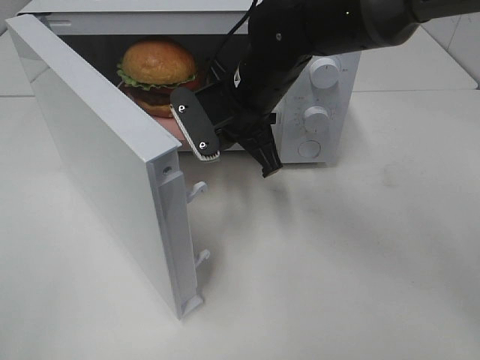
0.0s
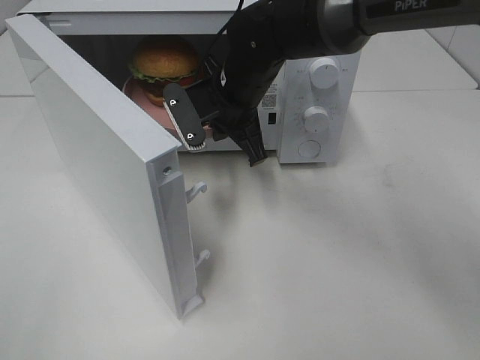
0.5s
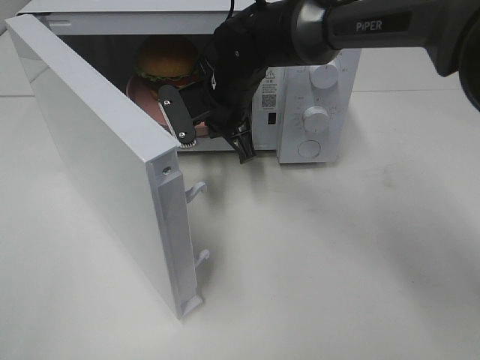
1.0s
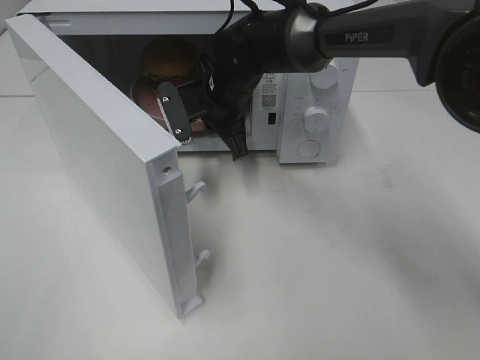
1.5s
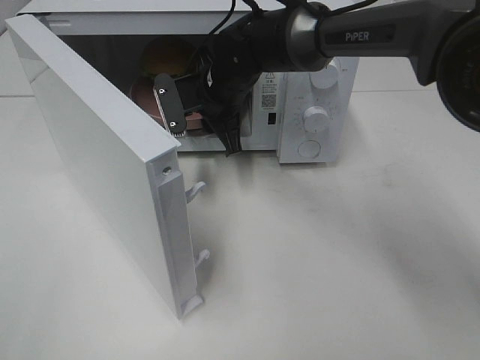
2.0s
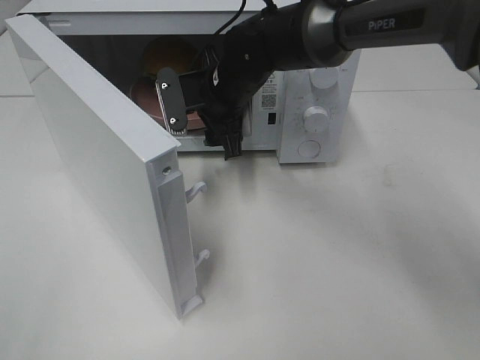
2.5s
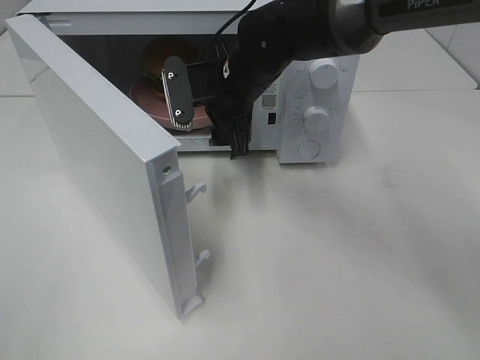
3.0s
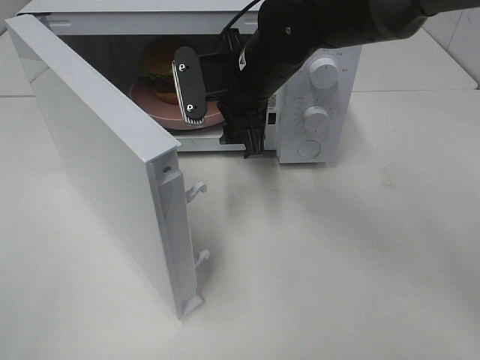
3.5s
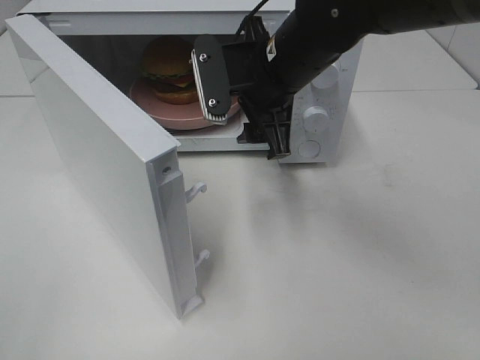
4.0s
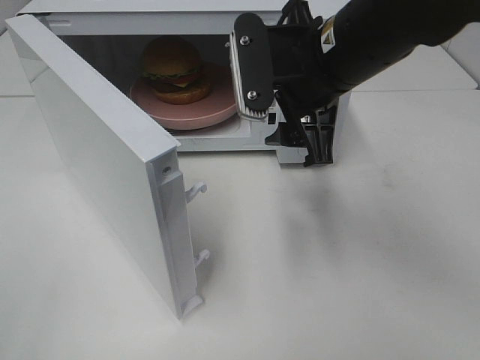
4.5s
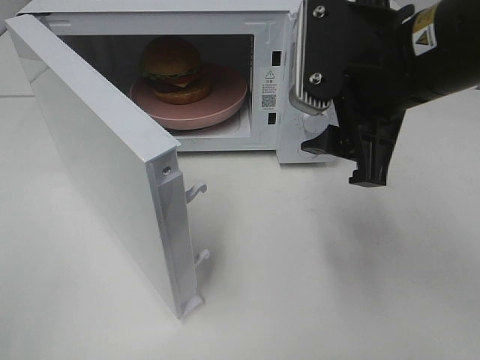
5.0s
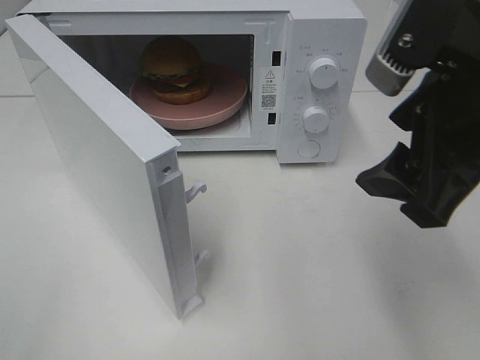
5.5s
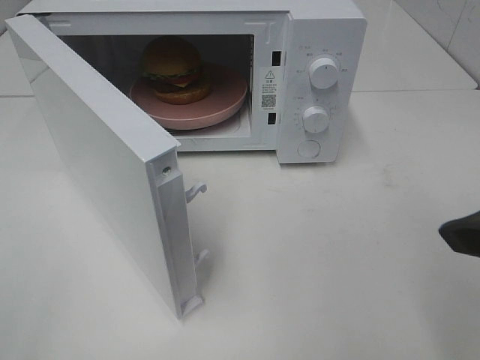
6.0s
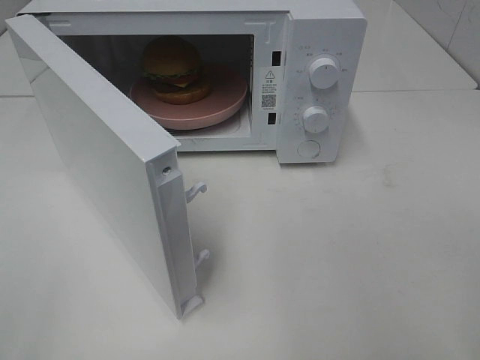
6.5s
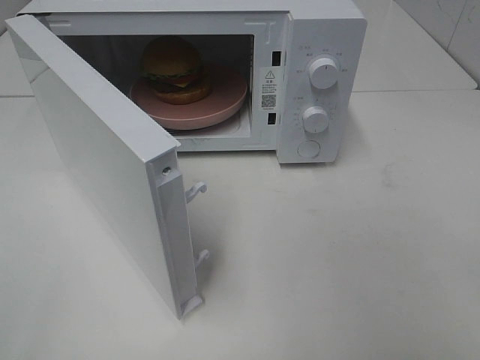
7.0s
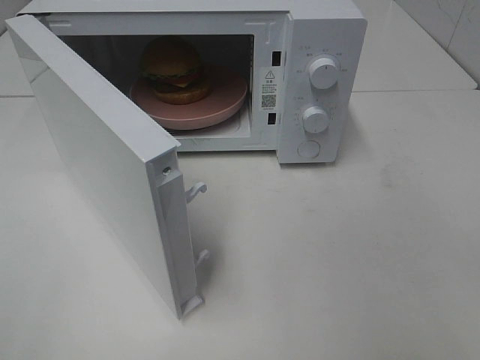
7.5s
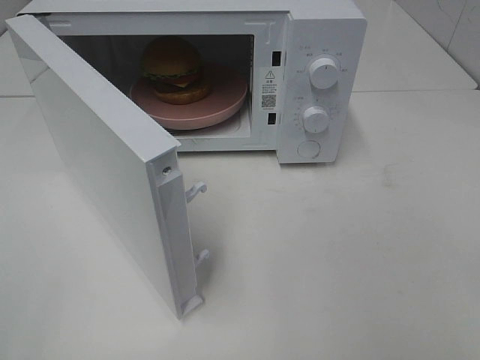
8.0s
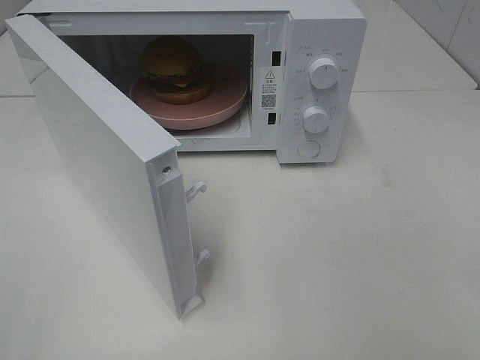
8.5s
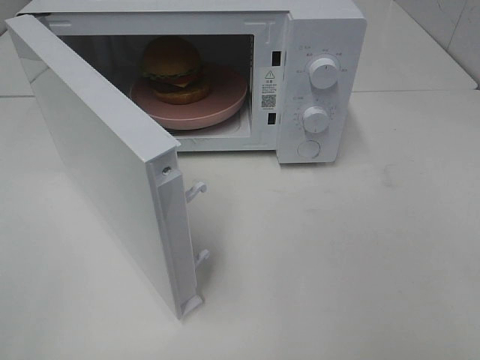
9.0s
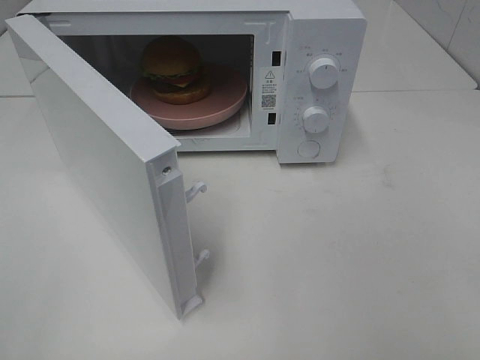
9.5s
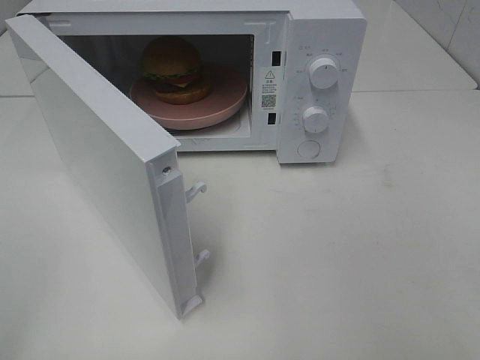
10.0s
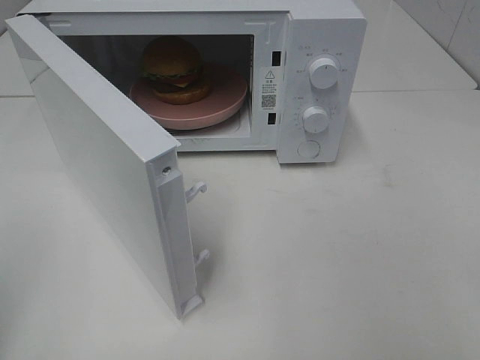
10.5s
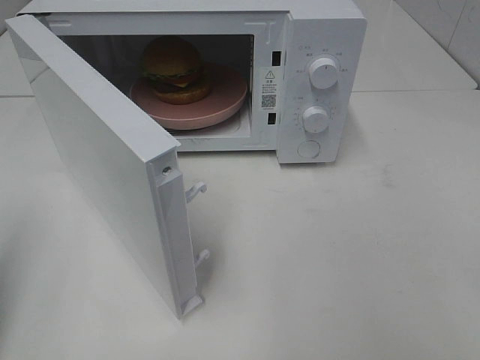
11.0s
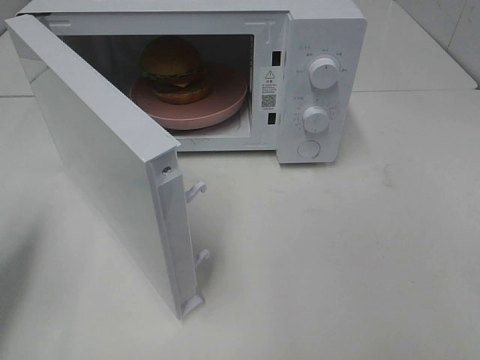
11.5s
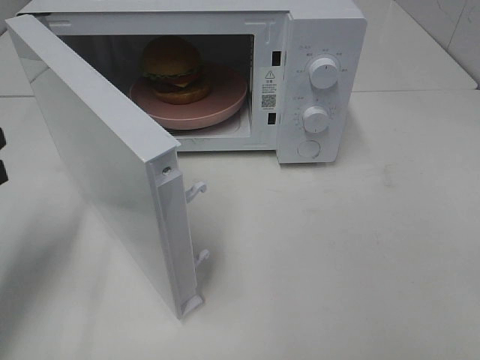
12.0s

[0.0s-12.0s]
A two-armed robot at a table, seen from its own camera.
Task of the whole recording: Heat the burger.
0.0s to 2.0s: The right gripper moves forward, about 5 cm, and opens.
2.0s to 4.0s: The right gripper goes some 15 cm backward, upward and to the right, and opens.
4.0s to 6.0s: The right gripper goes approximately 25 cm backward and to the right.
6.0s to 8.0s: The right gripper moves backward and to the right, some 15 cm.
10.0s to 12.0s: The left gripper shifts some 20 cm forward and downward, and closes its fingers.

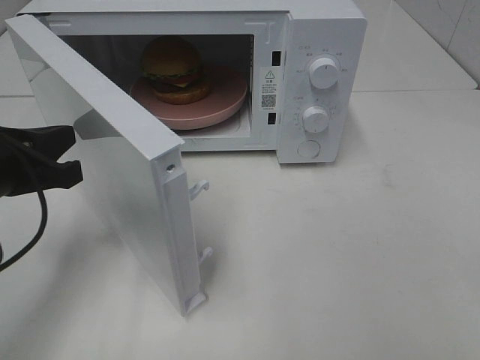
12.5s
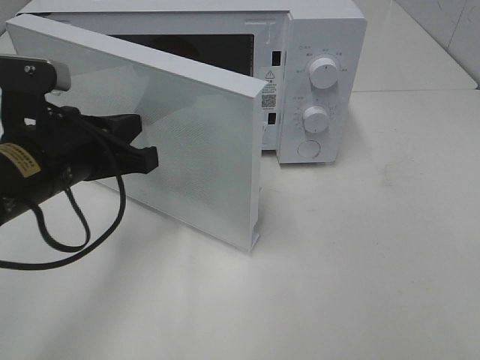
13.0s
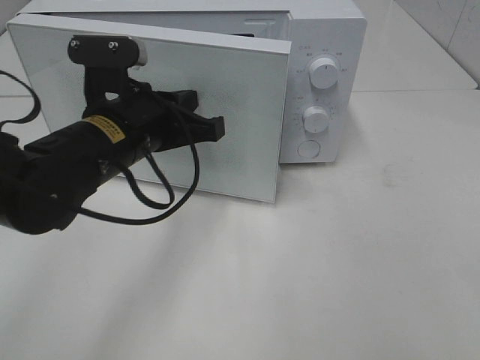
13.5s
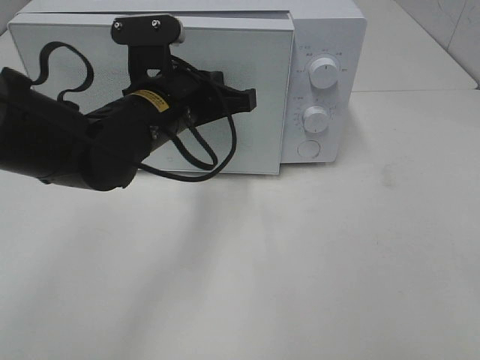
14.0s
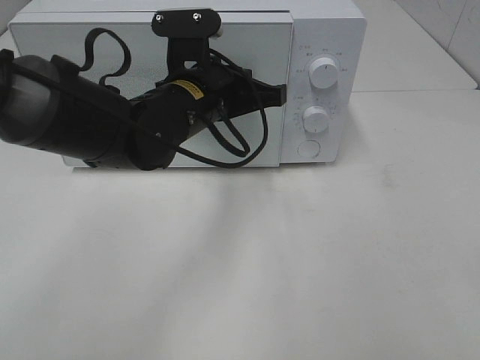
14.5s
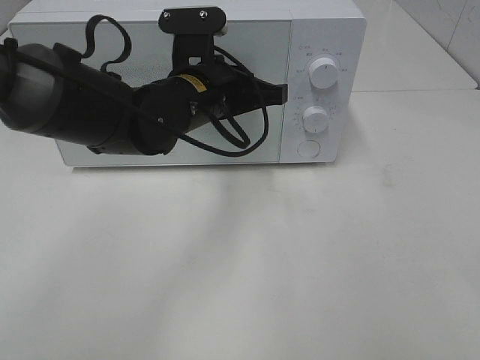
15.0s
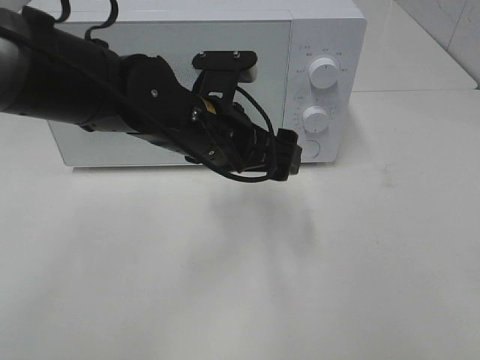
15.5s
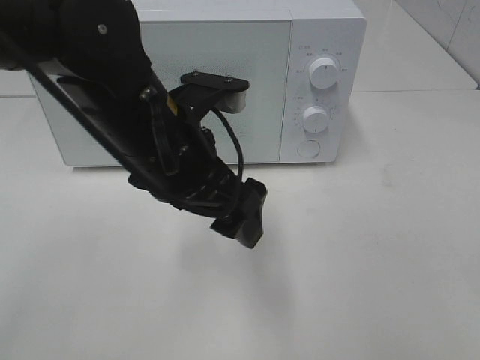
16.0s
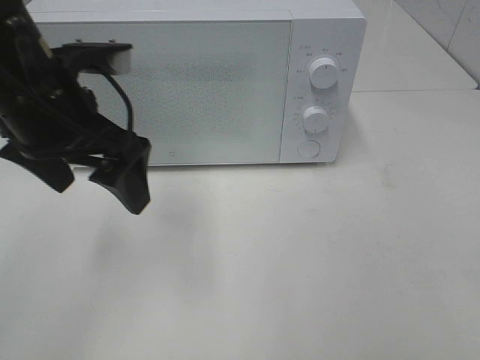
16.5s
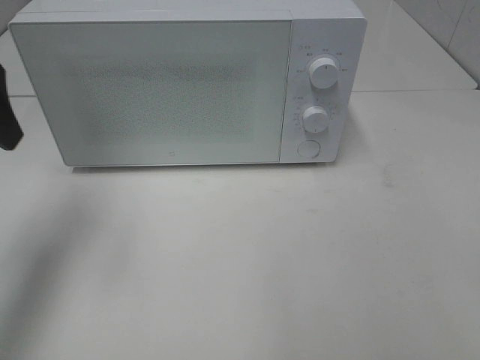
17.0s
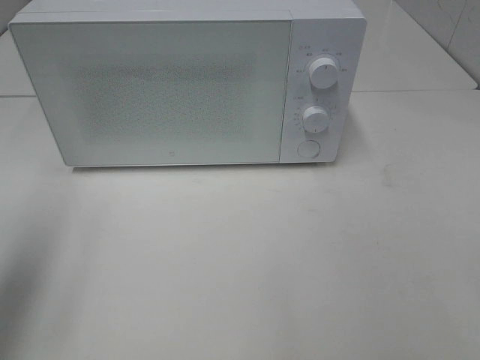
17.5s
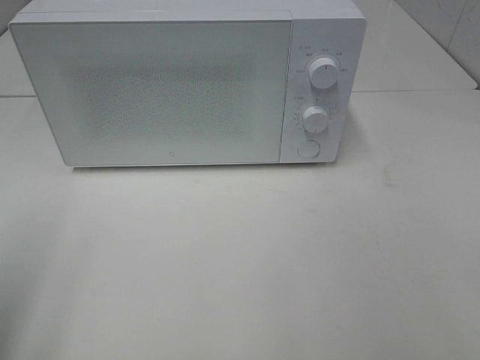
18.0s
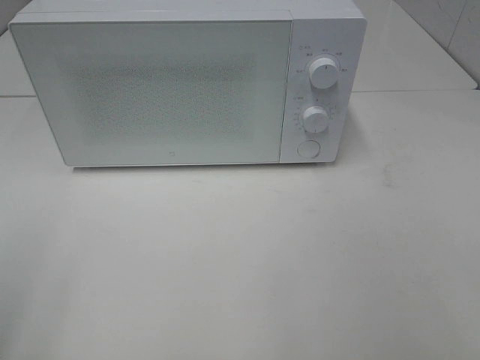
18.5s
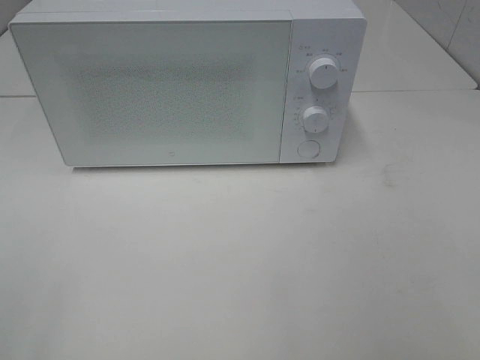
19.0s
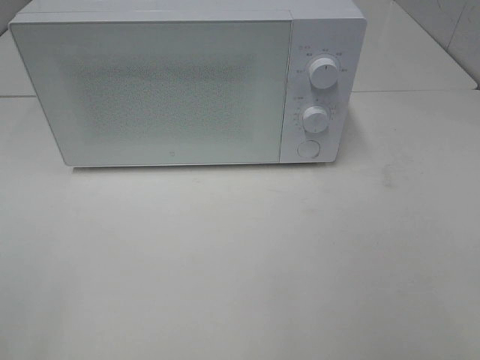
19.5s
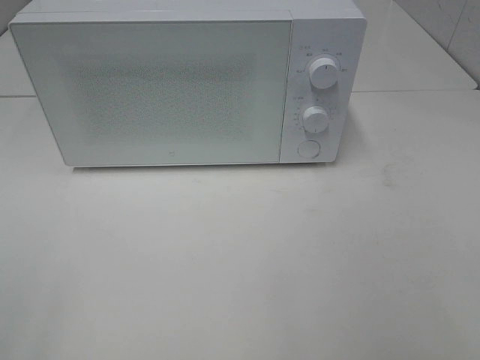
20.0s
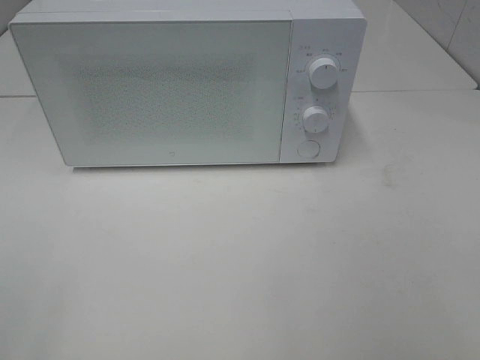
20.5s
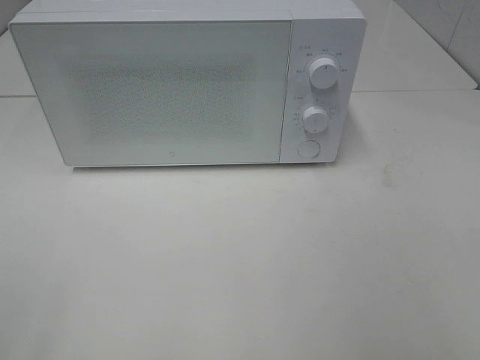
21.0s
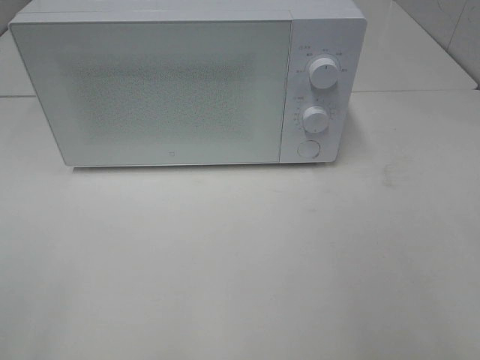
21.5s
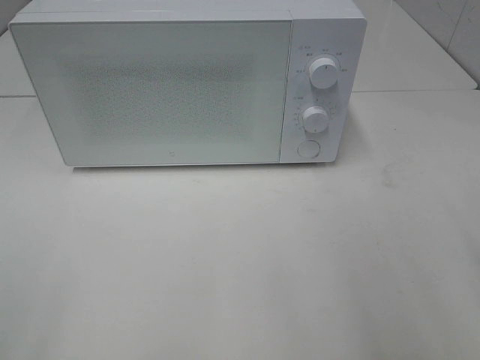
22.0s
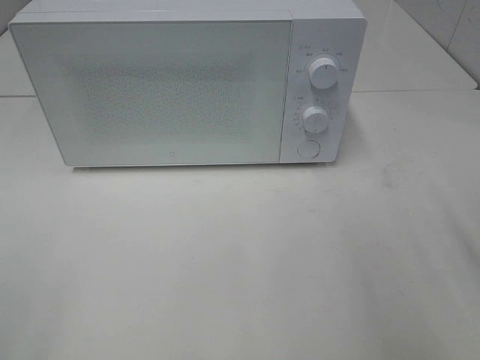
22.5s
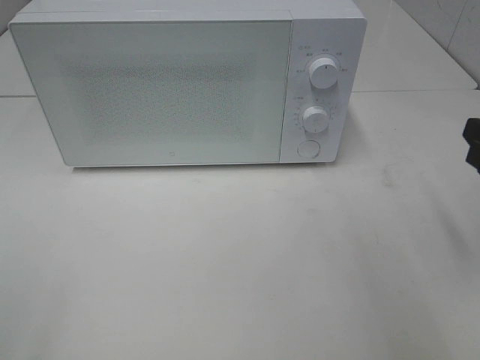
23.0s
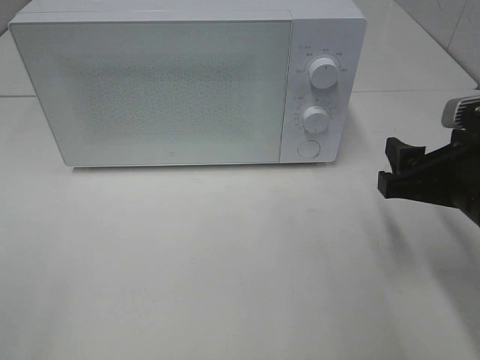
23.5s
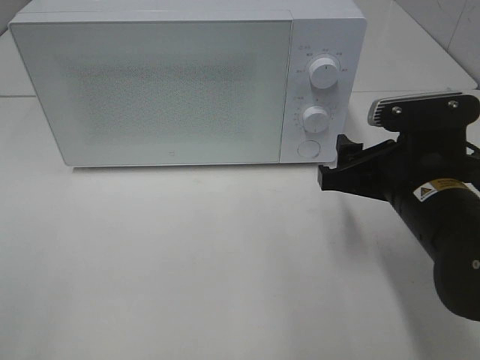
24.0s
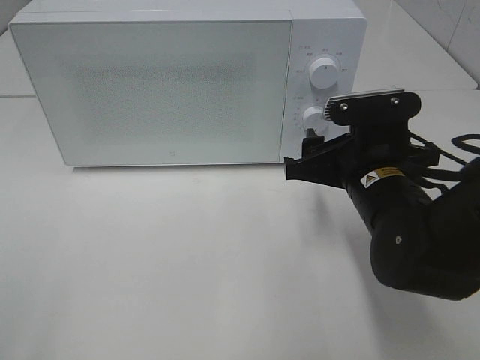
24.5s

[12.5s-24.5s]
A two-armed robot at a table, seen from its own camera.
Task of the whole recording: Heat the burger.
Step, 12.5s to 15.0s: Left hand: close the microwave door.
12.5s to 14.5s: The left gripper shifts some 20 cm to the right and forward.
14.5s to 16.5s: The left gripper heads to the left, upward and backward, covering some 15 cm, and opens its fingers.
16.5s to 18.5s: The left gripper heads backward and to the left, covering some 25 cm.
22.5s to 24.5s: The right gripper shifts some 20 cm to the left, forward and downward.

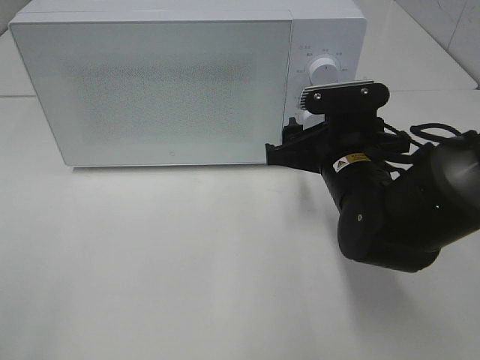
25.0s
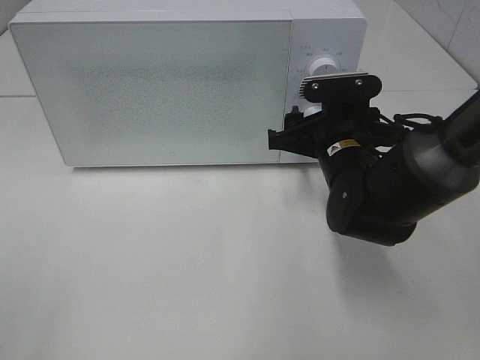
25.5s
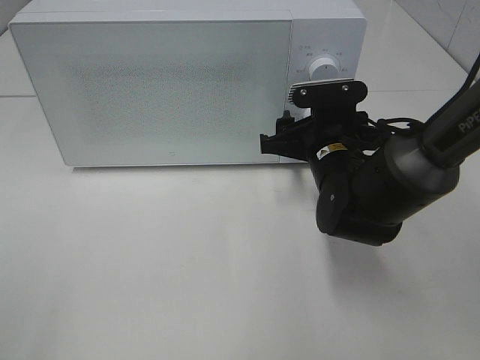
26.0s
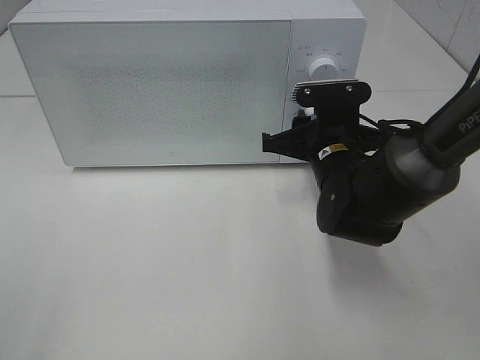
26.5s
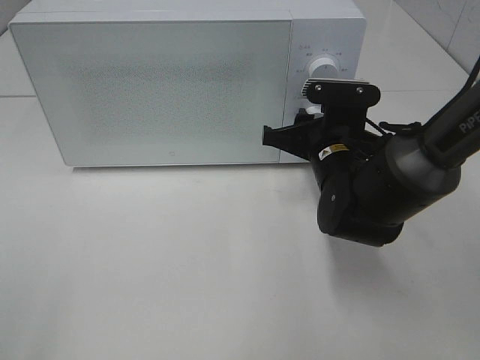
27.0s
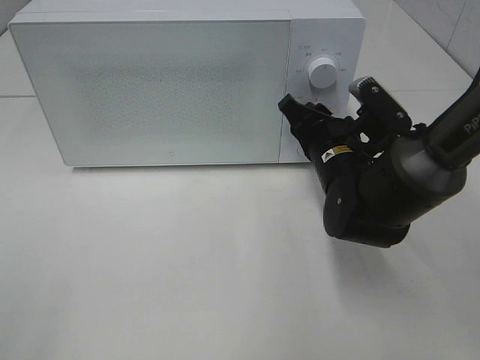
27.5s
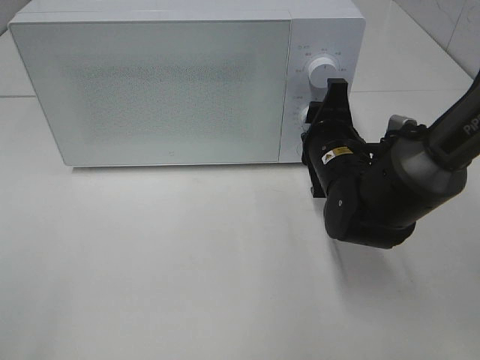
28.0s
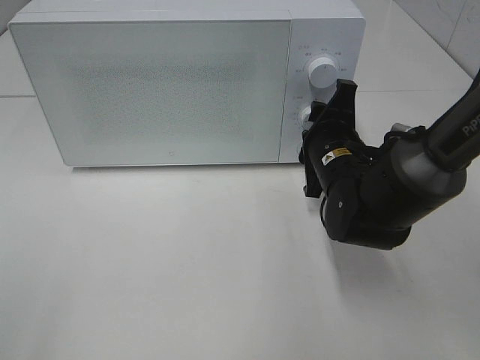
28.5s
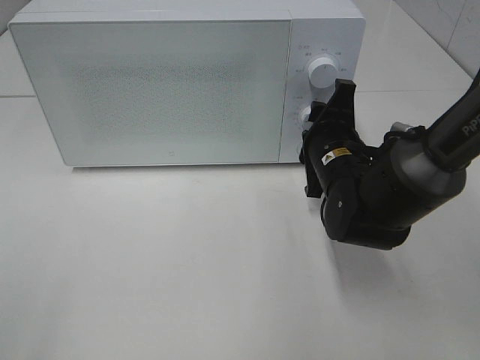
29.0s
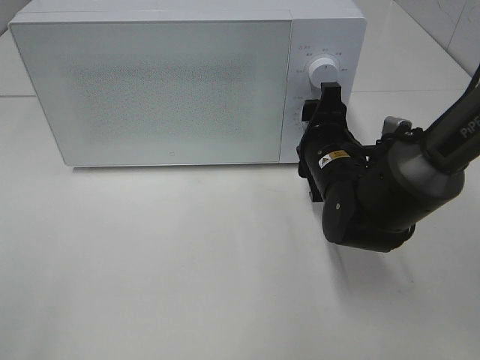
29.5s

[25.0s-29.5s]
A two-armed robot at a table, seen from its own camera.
Task of the whole recording: Heat the burger.
Step, 25.0s to 29.5s: Right hand: twist timer button.
25.0s to 27.0s: The right gripper closes up.
